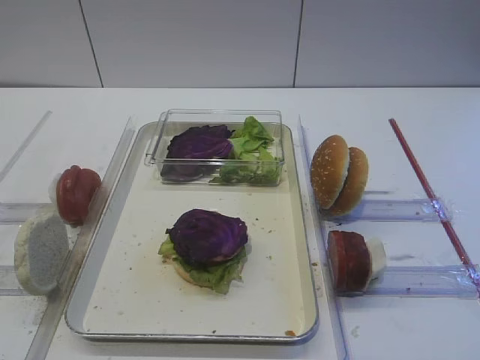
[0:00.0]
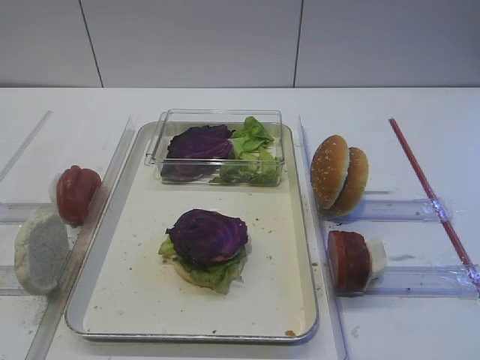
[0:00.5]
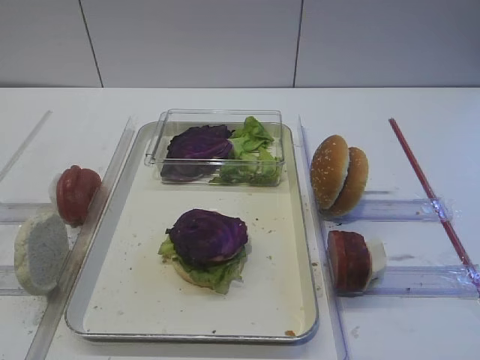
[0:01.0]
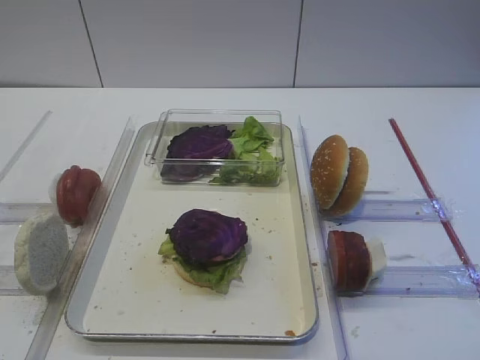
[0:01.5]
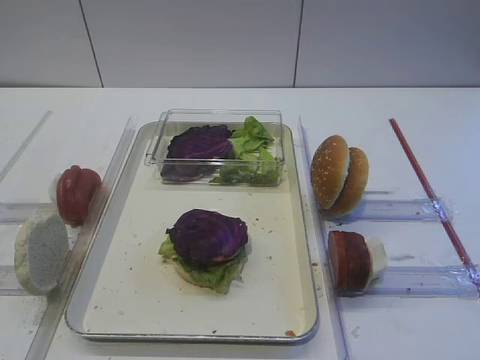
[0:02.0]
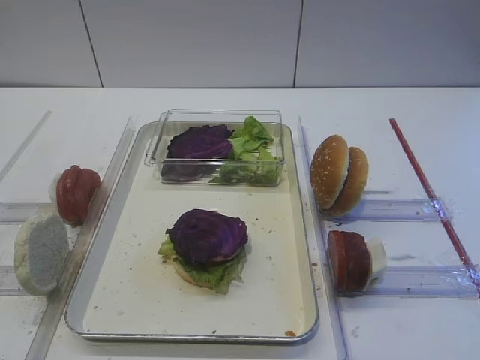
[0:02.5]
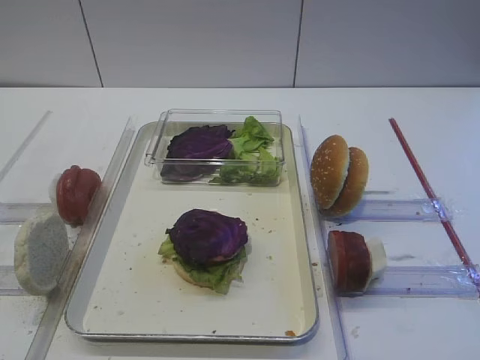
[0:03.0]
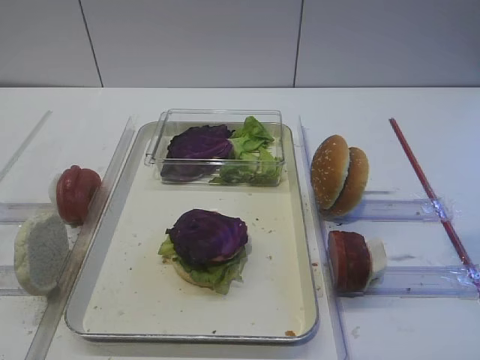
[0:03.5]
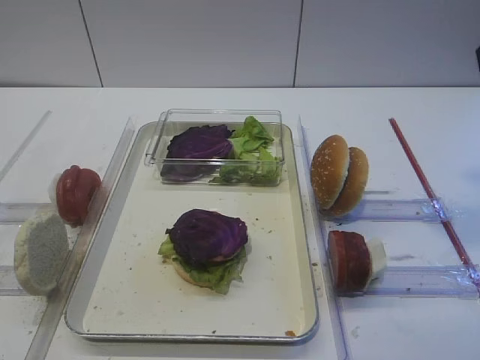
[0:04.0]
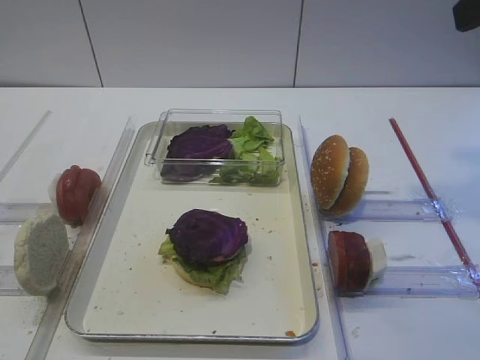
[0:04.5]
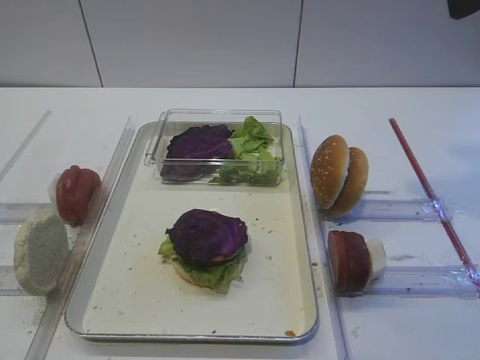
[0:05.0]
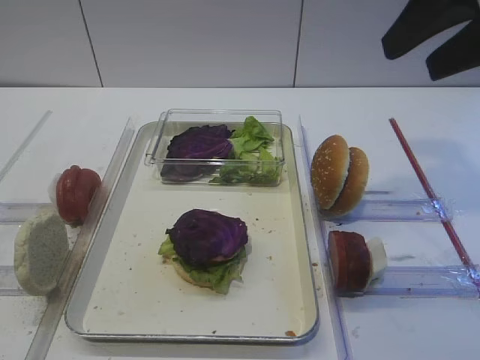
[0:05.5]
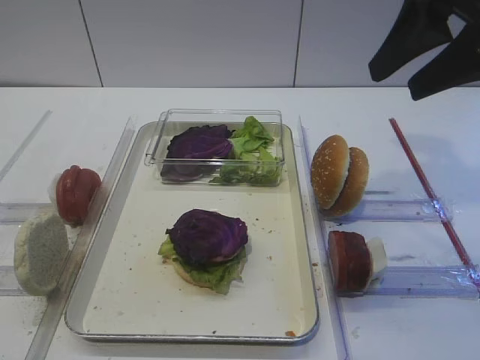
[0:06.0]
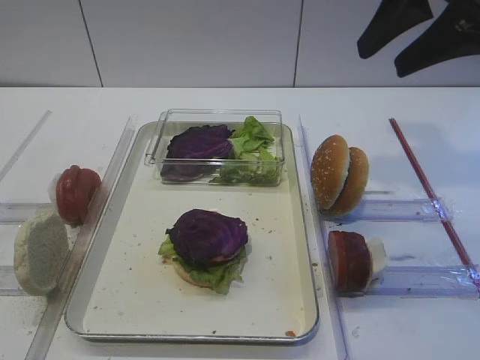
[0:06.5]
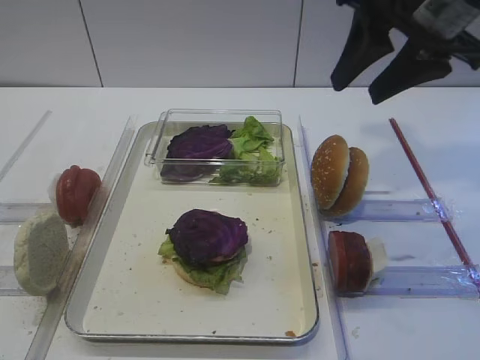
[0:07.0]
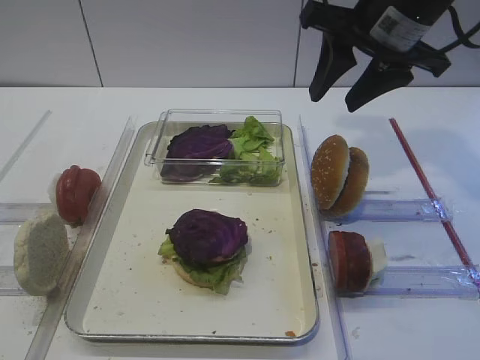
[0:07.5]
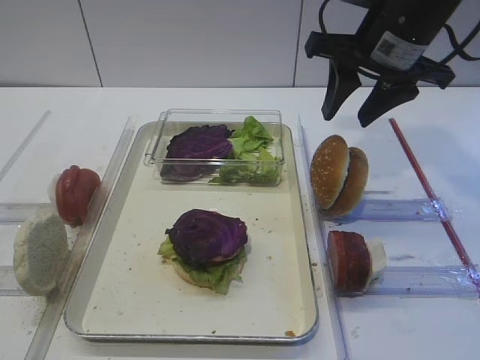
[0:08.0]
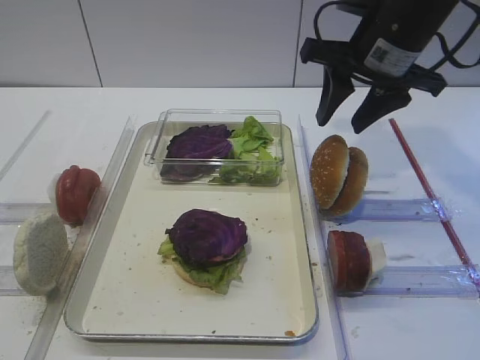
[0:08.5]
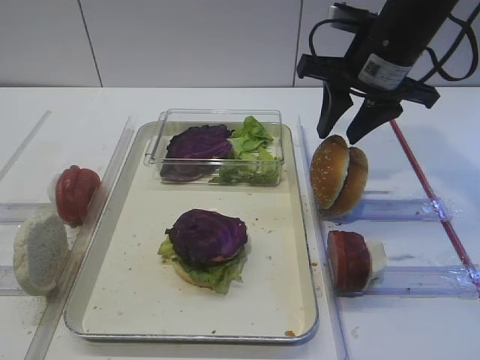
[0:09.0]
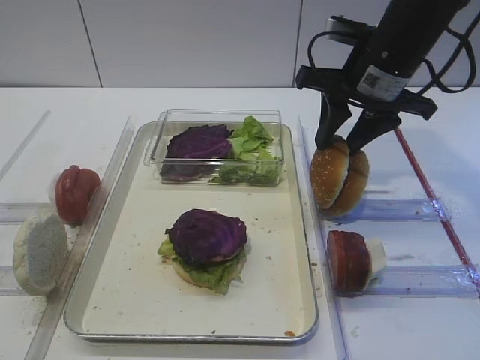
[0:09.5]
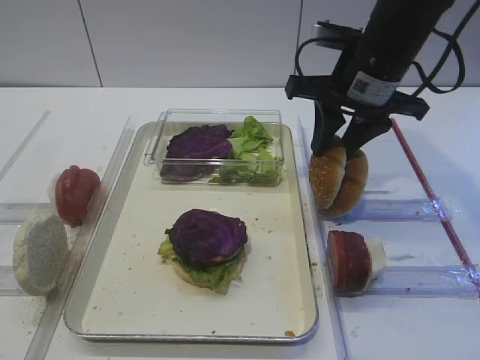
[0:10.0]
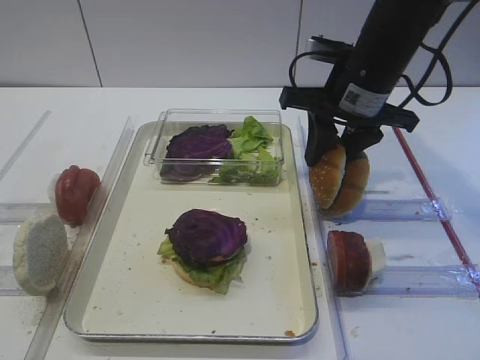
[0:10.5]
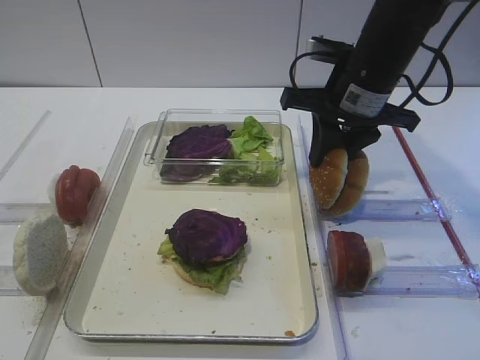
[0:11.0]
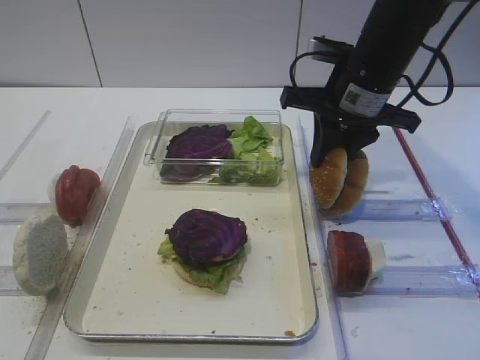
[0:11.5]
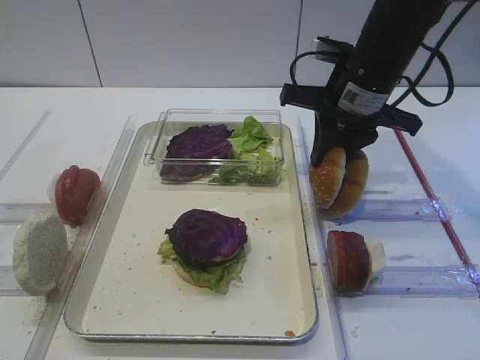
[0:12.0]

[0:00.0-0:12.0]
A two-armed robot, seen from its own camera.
4.0 to 6.0 s: The right gripper shifts about 10 cm forward.
6.0 to 8.0 s: The right gripper is displaced forward and downward by roughly 10 cm.
8.0 to 12.0 s: The grippers stay close to where they were, moving slightly.

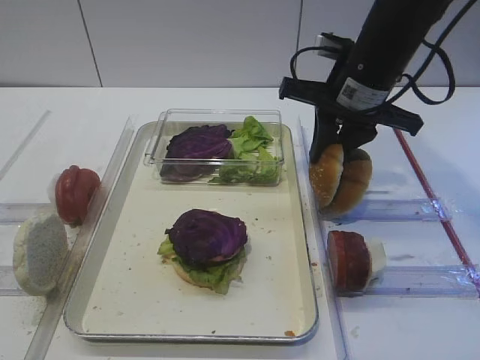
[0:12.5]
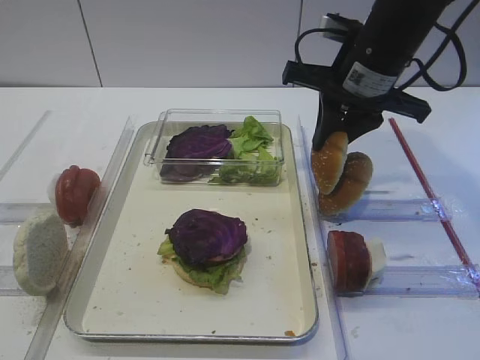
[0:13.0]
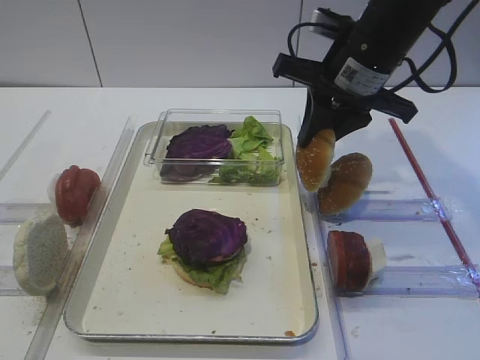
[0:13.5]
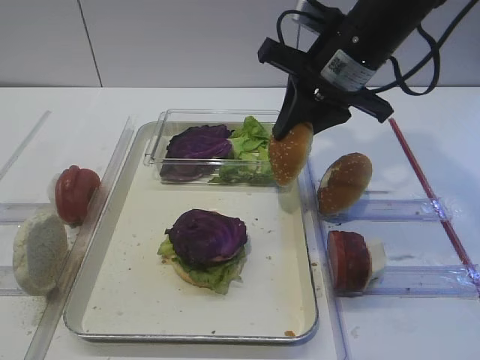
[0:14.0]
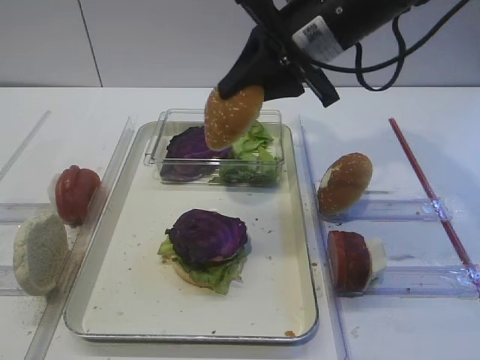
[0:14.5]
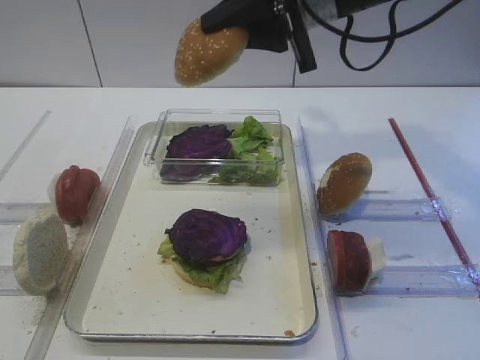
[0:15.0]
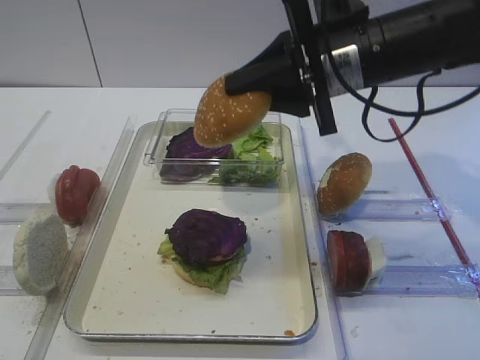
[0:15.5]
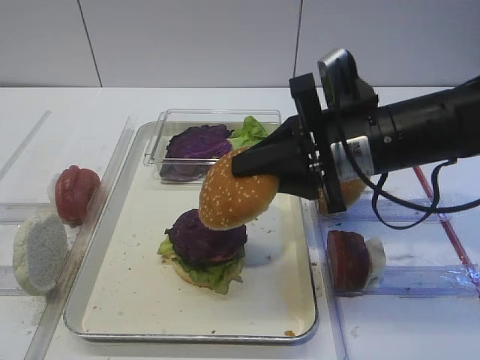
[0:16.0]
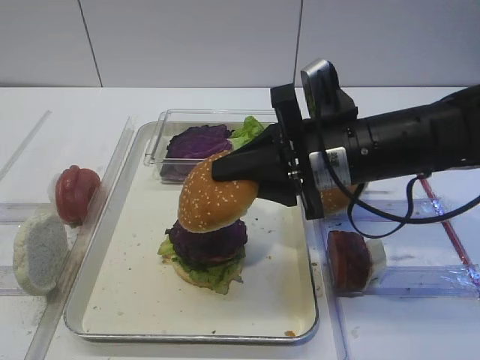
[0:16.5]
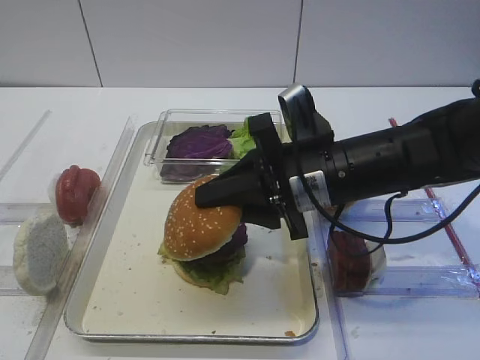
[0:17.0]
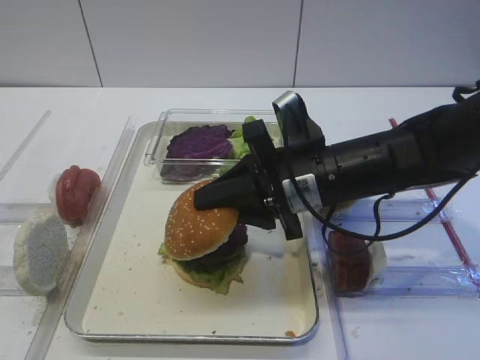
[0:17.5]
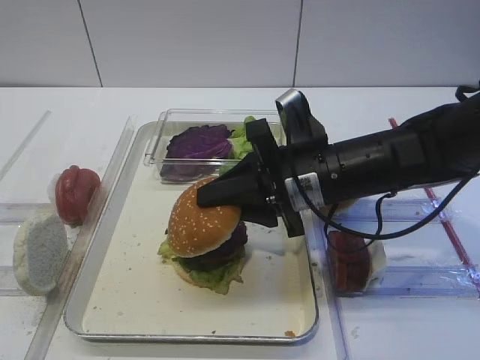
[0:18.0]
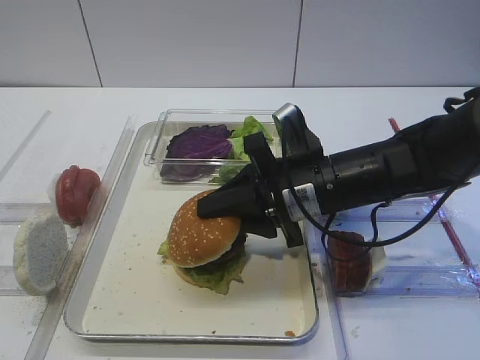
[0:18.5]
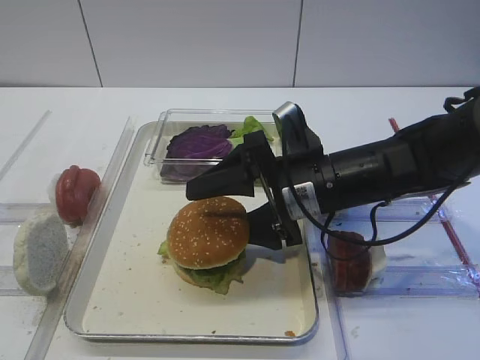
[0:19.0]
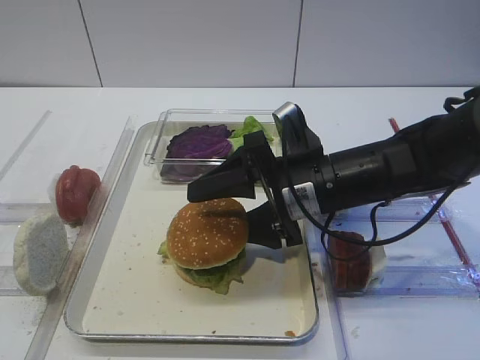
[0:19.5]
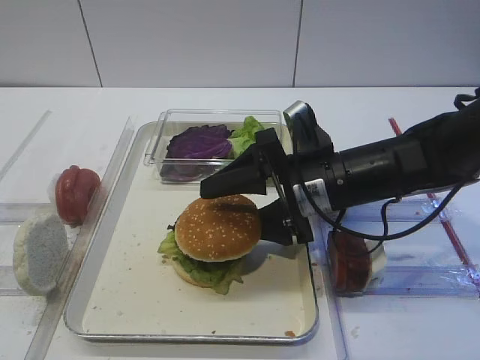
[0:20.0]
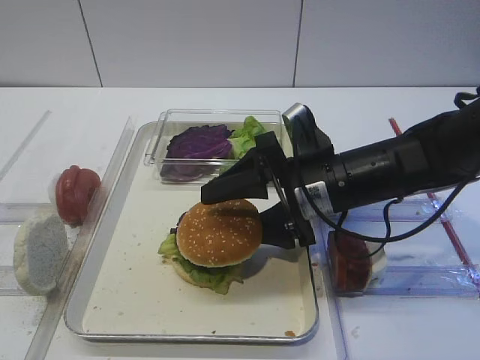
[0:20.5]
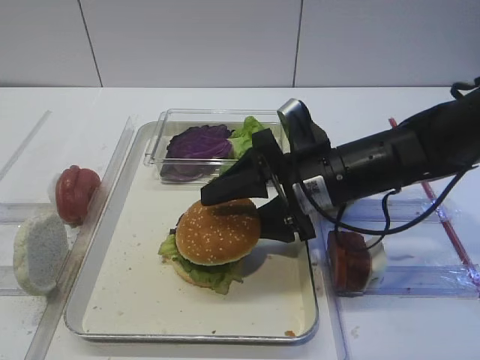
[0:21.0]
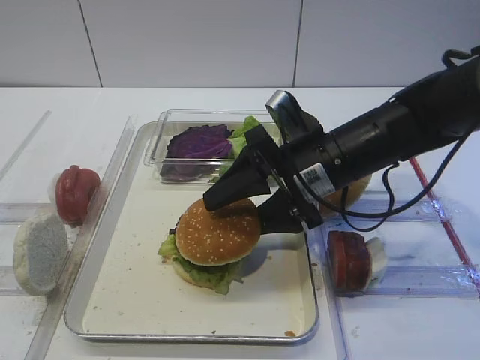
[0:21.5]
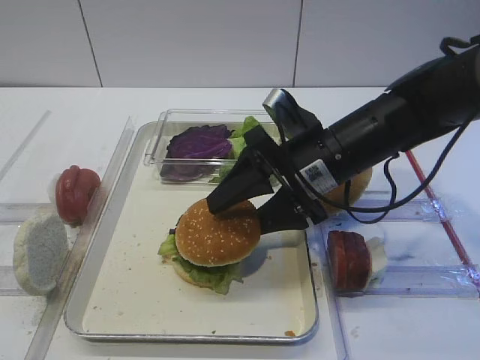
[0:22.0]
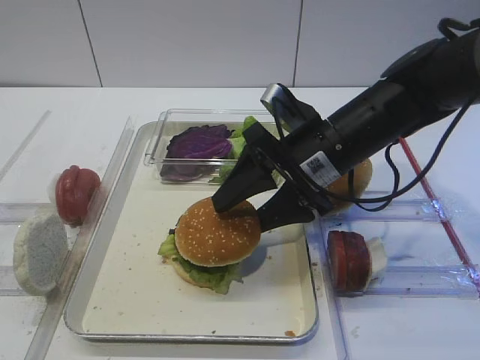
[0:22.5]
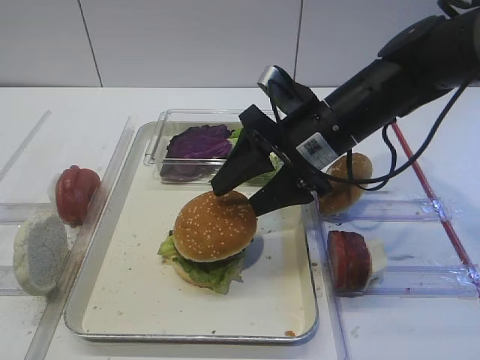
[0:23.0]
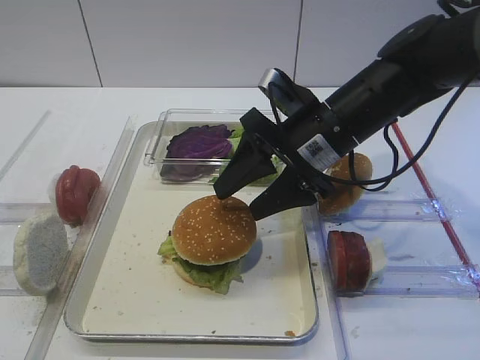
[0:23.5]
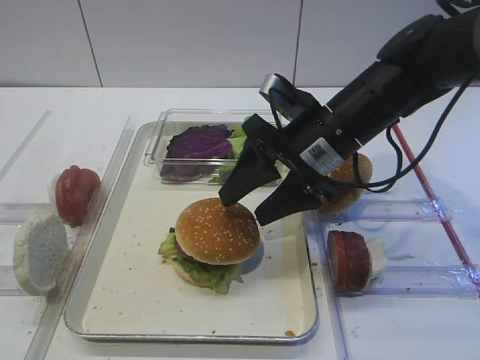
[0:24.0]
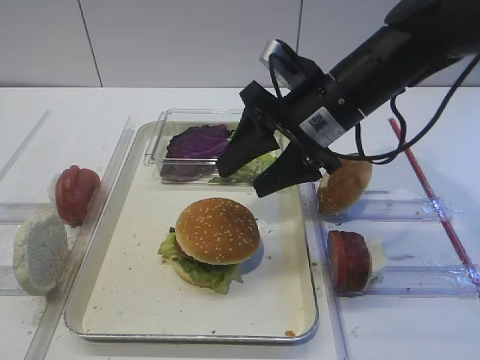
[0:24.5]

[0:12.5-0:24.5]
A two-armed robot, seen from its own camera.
12.5 to 14.5 s: The right gripper shifts some 5 cm upward.
14.5 to 16.5 s: The right gripper goes roughly 10 cm downward and backward.
16.5 to 18.5 s: The right gripper shifts about 5 cm downward.
18.5 to 20.5 s: The right gripper opens.
22.5 to 24.5 s: There are only small adjustments of the grippers.

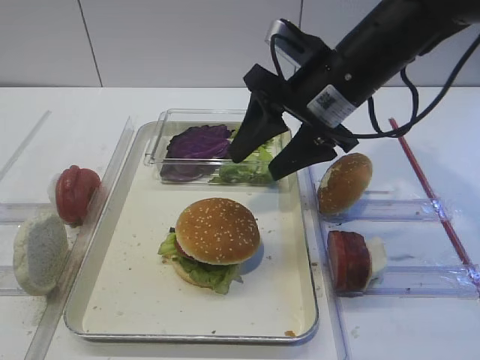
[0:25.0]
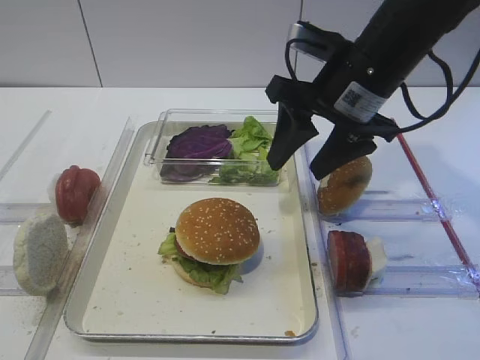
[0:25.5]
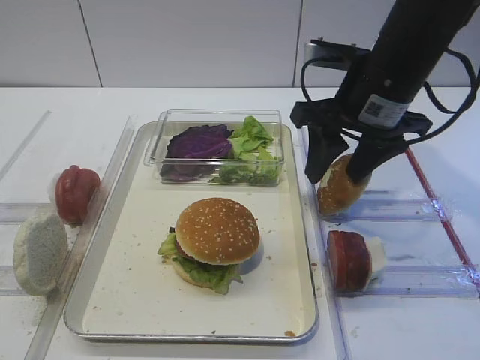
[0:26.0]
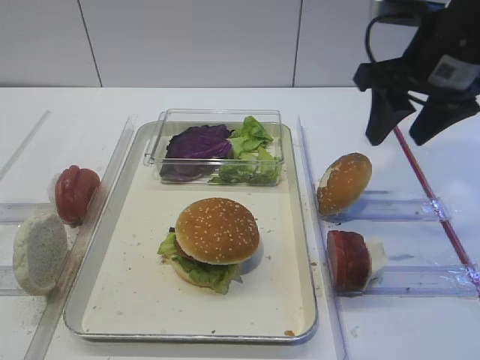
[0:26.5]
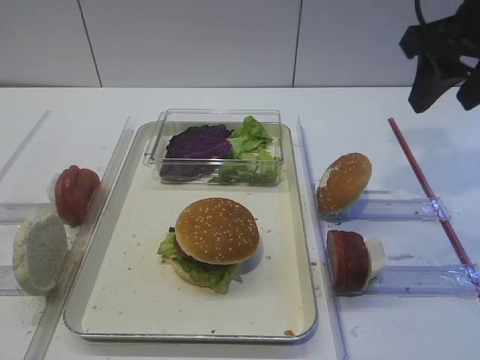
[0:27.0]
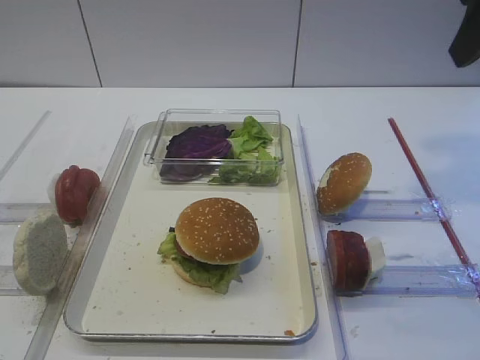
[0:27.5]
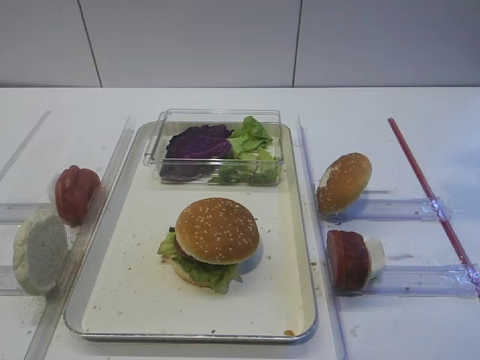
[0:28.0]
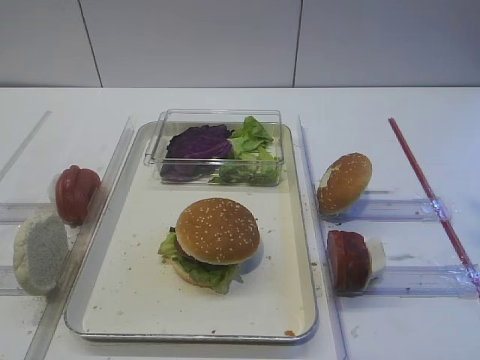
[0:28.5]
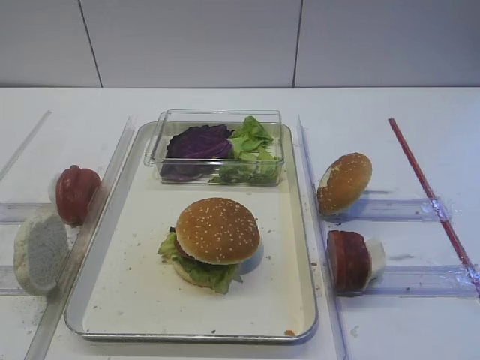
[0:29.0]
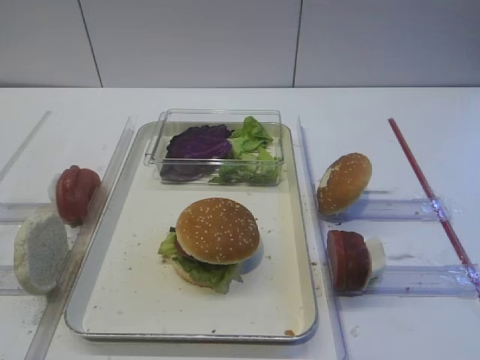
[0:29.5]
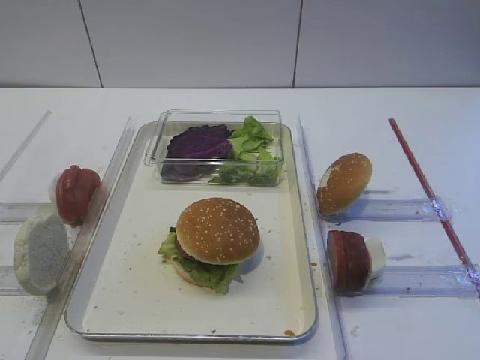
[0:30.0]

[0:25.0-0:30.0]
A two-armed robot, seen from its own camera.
25.0 to 27.5 s: The right gripper moves upward, to the right and backward, about 20 cm.
27.5 to 30.0 s: The right gripper heads backward, covering roughly 25 cm.
